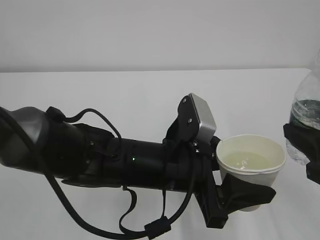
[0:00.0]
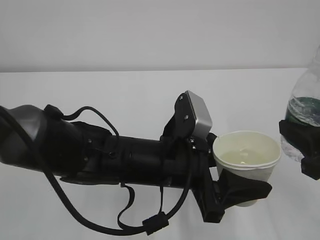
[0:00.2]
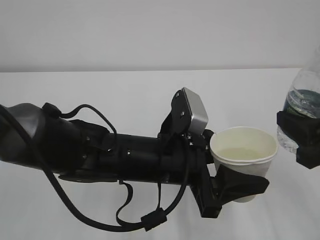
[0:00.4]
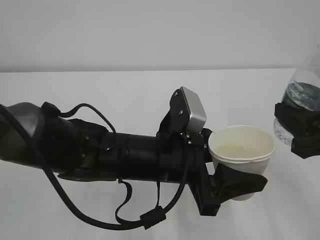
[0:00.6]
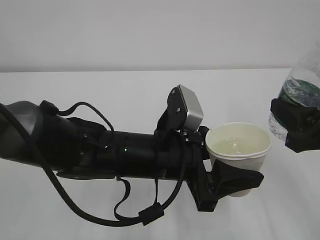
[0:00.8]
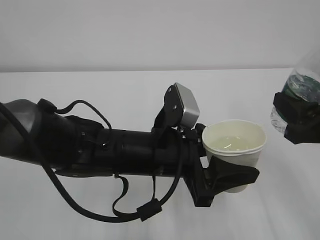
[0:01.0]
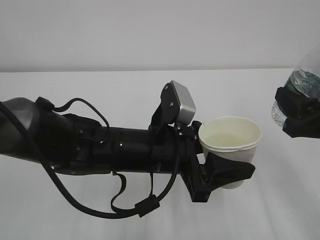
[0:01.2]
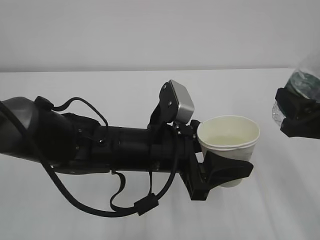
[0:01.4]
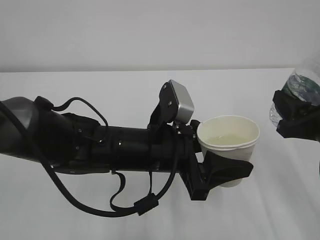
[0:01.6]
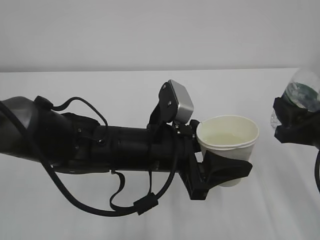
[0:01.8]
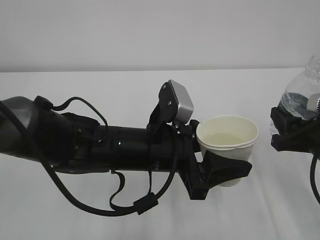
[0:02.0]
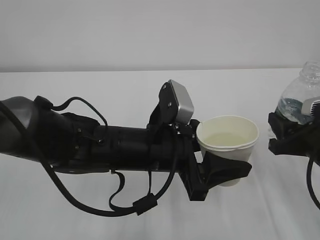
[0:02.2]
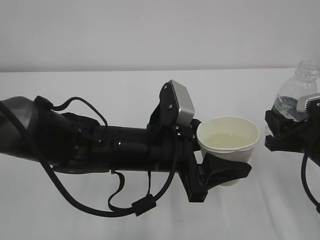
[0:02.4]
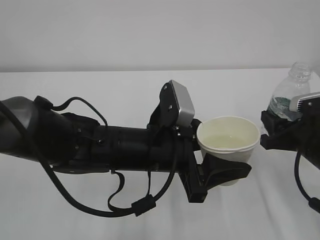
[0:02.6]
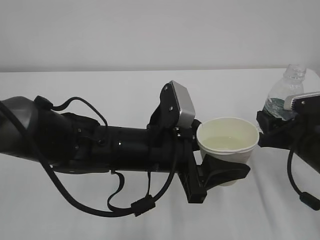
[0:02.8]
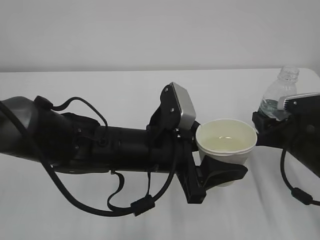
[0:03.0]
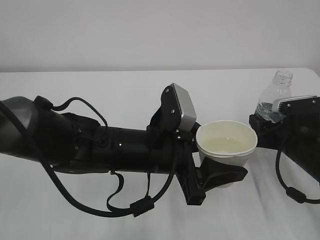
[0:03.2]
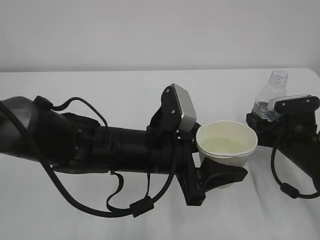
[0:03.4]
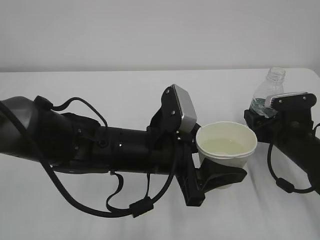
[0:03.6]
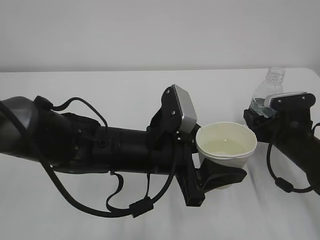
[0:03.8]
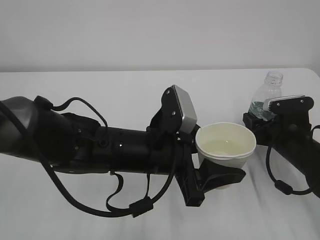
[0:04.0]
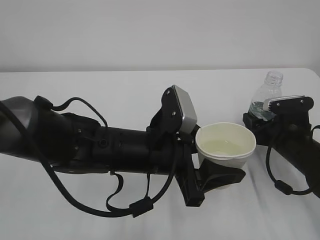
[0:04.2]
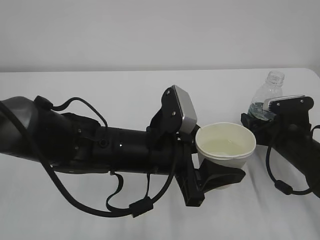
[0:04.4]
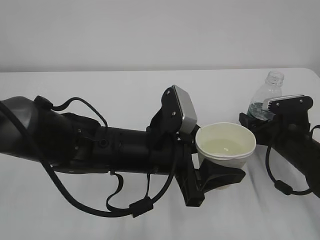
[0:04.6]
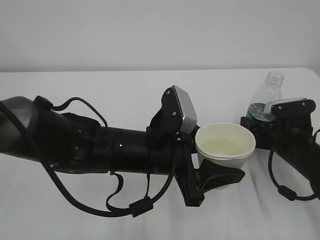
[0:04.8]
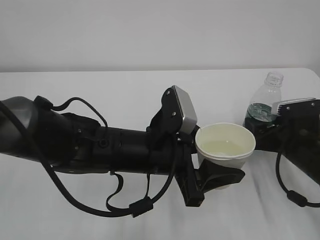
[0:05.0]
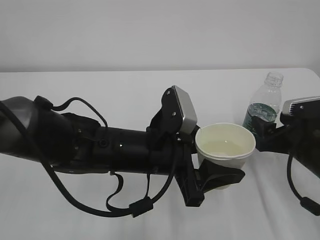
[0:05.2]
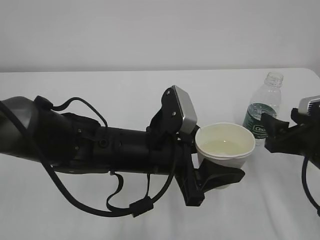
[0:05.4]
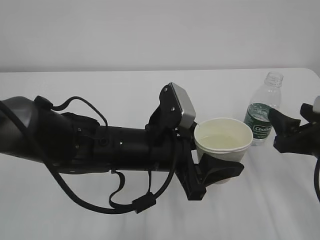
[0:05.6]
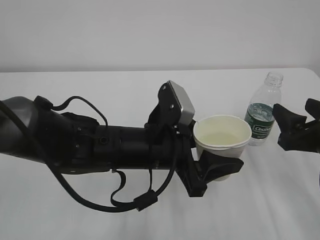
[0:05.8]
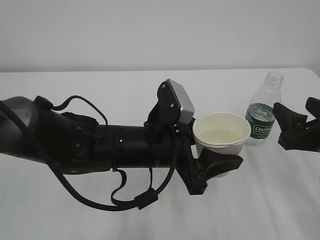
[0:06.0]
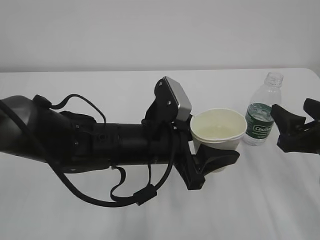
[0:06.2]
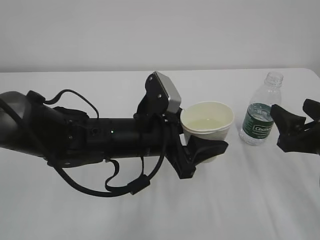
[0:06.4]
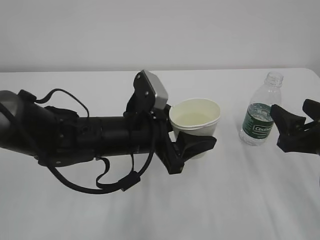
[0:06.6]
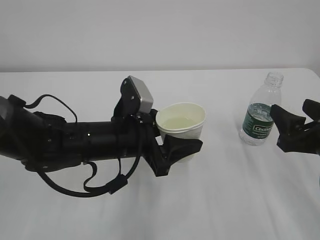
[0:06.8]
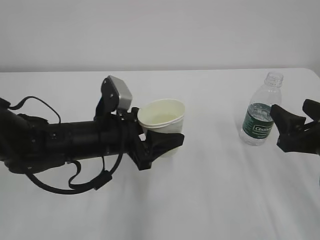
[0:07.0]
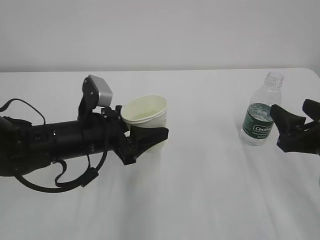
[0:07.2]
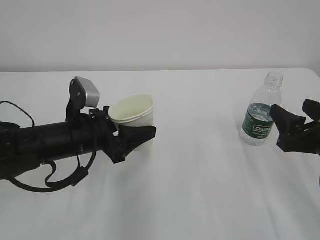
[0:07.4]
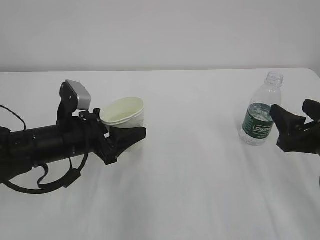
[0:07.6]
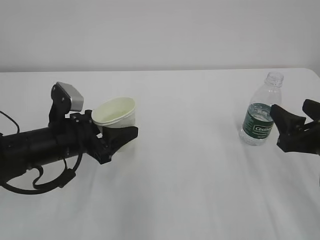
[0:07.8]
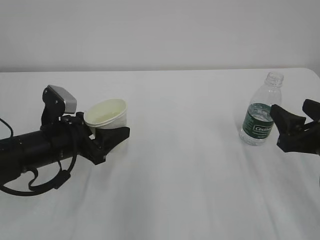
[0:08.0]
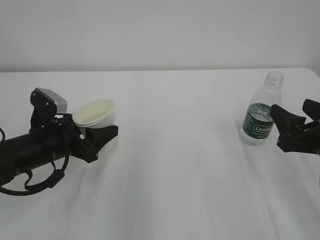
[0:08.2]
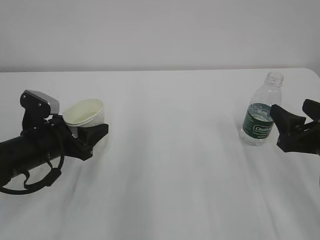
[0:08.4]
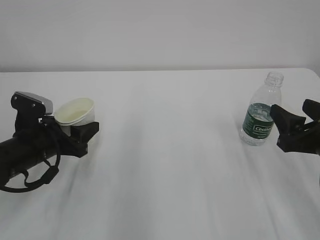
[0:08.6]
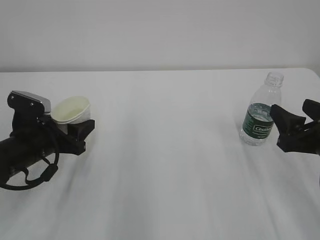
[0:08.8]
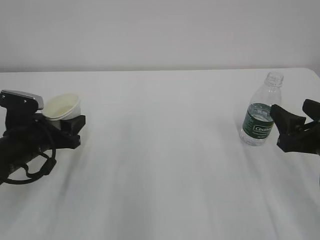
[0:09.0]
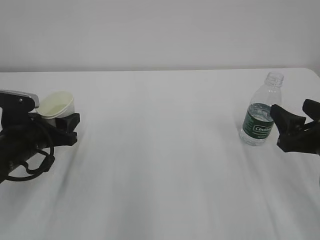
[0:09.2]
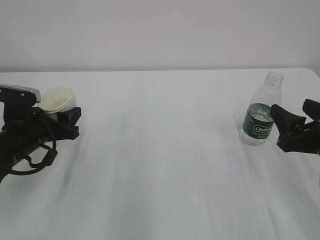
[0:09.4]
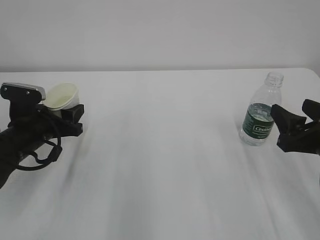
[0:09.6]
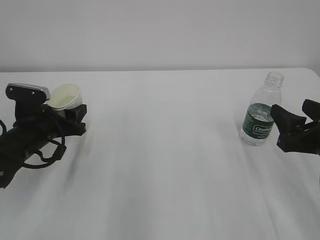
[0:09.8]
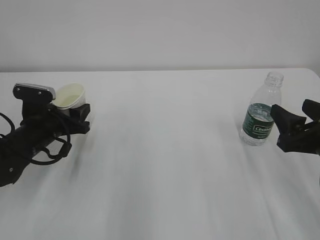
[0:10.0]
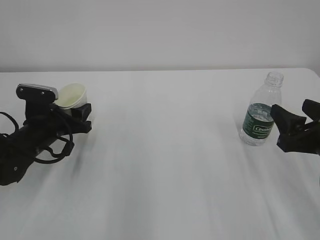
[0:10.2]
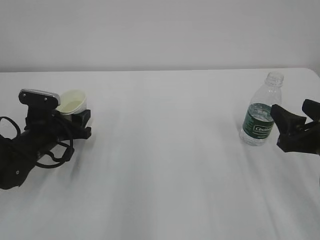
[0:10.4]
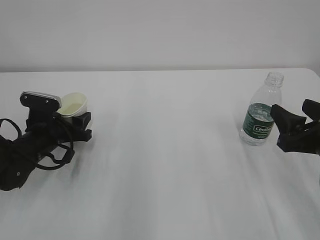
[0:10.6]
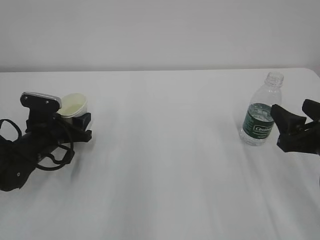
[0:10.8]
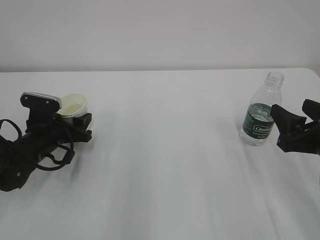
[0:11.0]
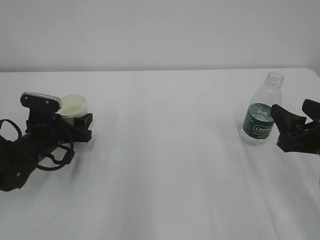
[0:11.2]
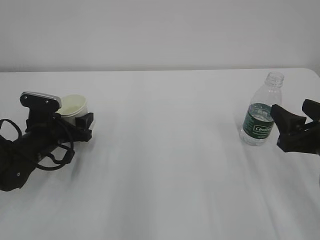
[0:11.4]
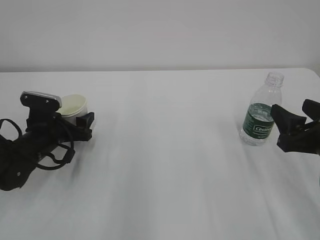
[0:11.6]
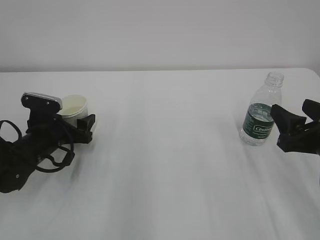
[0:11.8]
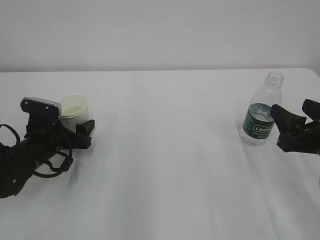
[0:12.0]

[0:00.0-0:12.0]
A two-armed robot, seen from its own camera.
0:00.0 to 0:01.6: The right gripper heads forward, covering about 5 cm.
0:01.6 to 0:03.0: The right gripper shifts about 10 cm downward and forward.
0:03.0 to 0:04.4: The right gripper opens its fingers.
0:04.4 to 0:06.0: The right gripper shifts about 15 cm backward and upward.
0:06.0 to 0:07.6: The left gripper travels to the left by some 15 cm.
0:07.6 to 0:09.0: The left gripper goes approximately 10 cm to the left.
0:09.0 to 0:10.4: The left gripper shifts by some 5 cm.
0:10.4 to 0:12.0: The left gripper opens up.

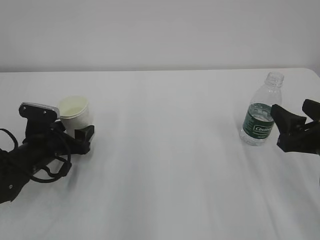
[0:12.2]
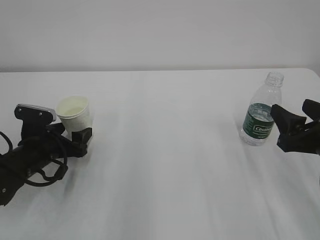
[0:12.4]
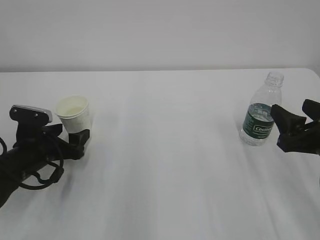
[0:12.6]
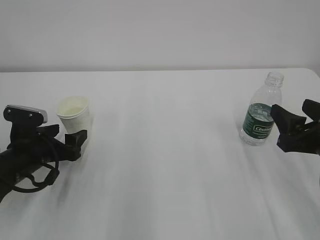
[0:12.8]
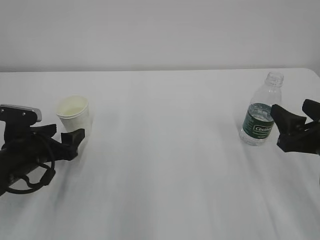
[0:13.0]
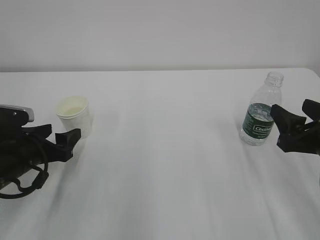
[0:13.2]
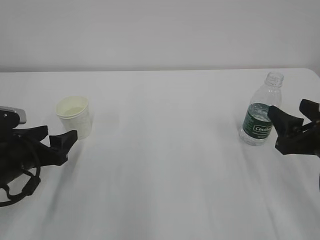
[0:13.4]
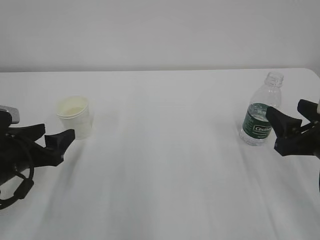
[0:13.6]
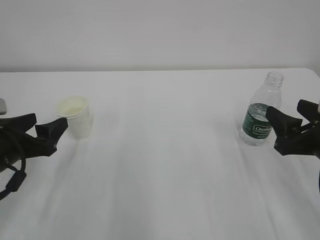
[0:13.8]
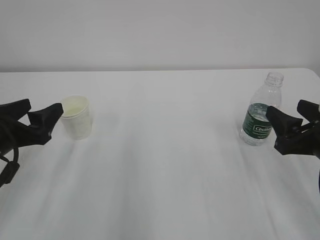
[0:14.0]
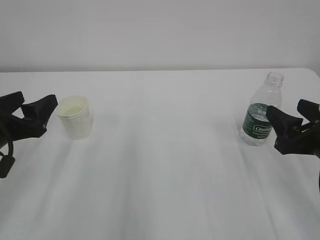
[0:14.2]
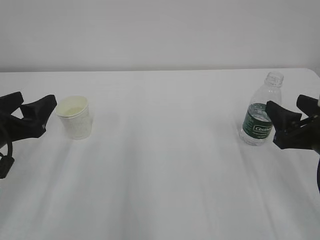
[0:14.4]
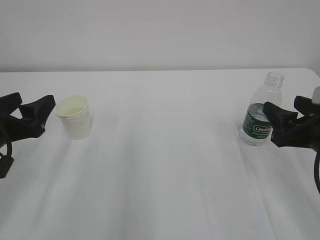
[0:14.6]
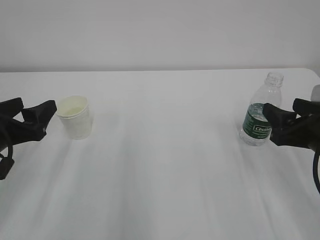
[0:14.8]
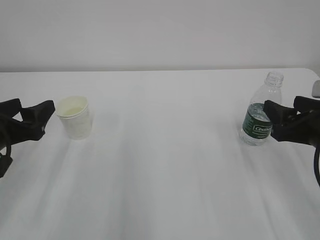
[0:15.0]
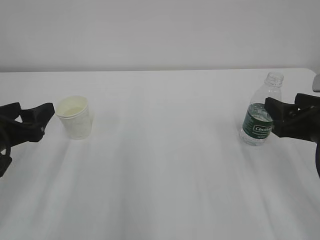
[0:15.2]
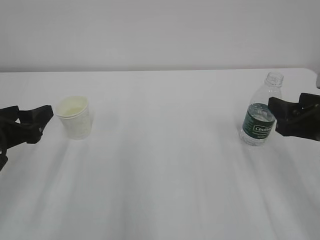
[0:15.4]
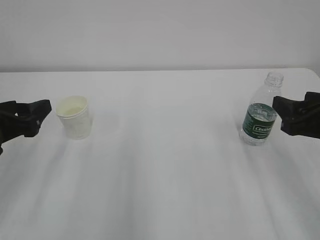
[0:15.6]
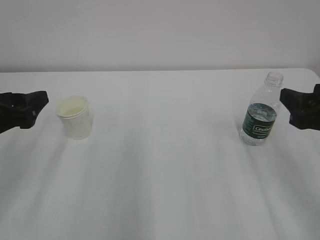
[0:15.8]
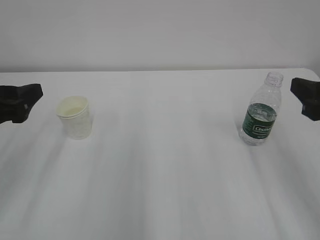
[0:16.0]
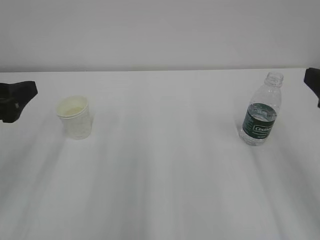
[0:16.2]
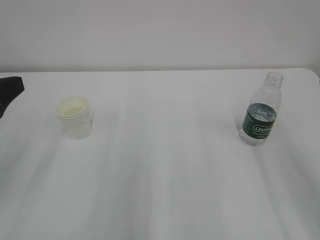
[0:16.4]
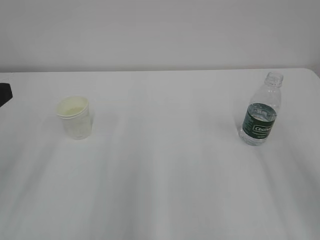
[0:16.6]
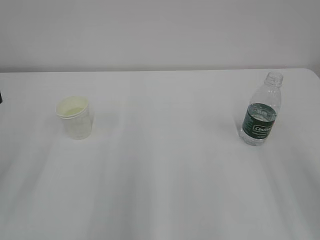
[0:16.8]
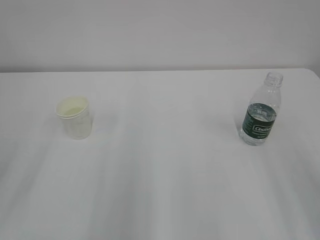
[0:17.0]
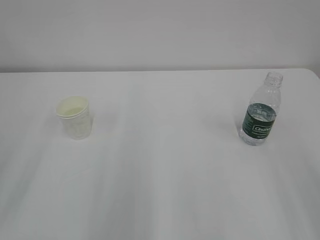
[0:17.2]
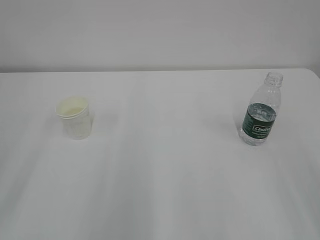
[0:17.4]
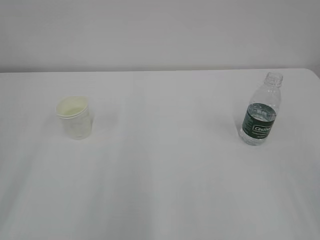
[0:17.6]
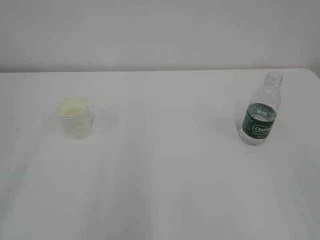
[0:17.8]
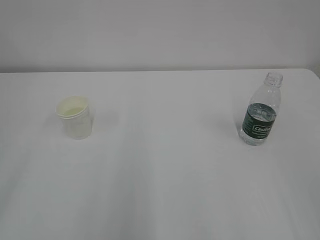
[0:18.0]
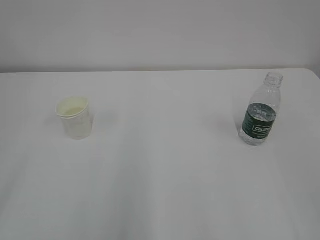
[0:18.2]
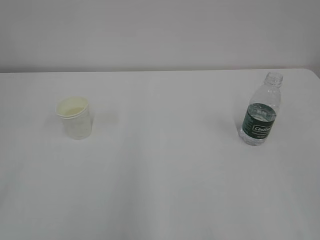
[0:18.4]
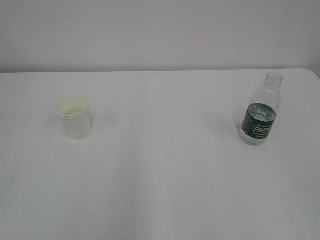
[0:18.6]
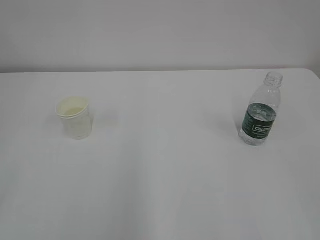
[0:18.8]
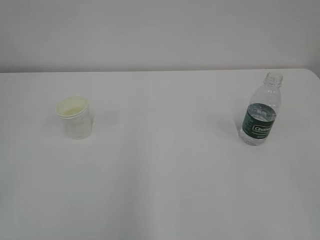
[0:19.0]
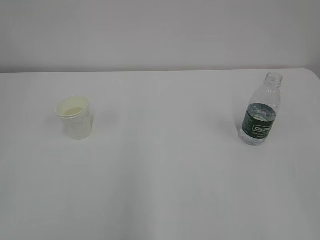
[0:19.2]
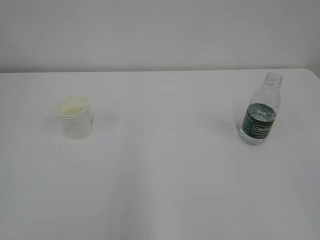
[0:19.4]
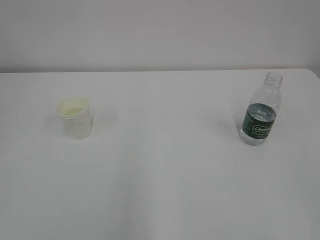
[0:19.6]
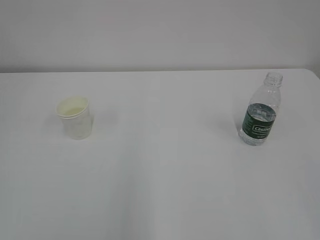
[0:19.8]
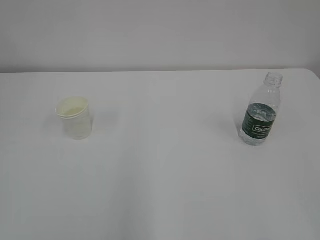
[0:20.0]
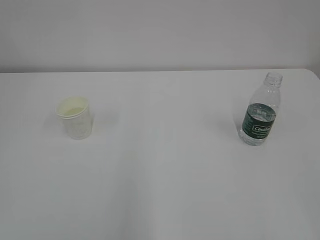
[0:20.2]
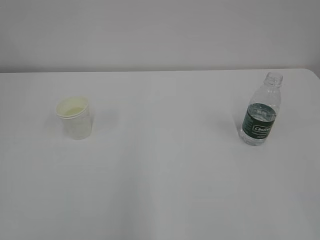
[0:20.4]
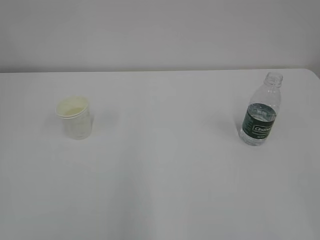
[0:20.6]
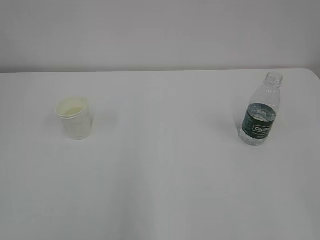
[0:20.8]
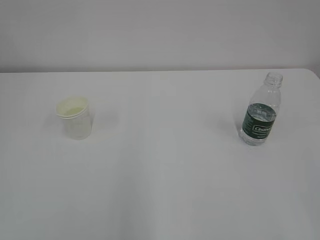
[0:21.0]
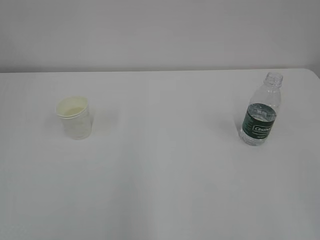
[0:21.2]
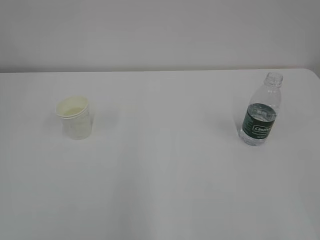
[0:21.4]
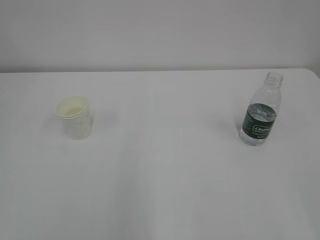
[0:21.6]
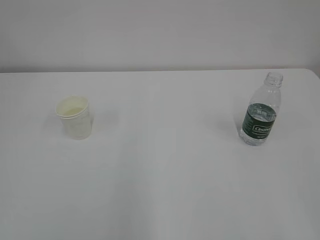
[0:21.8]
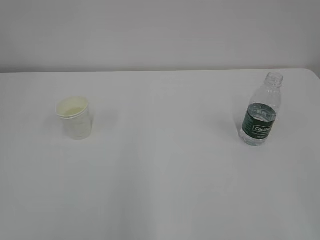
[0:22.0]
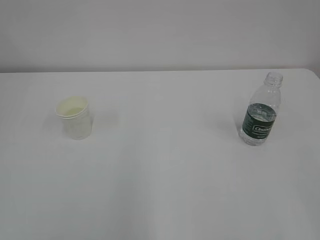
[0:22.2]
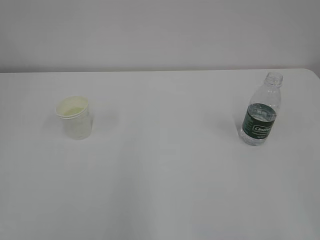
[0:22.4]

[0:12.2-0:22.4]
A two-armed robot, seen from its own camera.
0:12.2 to 0:13.6: The left gripper is displaced backward and upward by some 10 cm.
0:13.6 to 0:15.2: The grippers move only a little.
0:15.2 to 0:16.6: Both grippers move upward and backward, approximately 15 cm.
0:21.0 to 0:22.4: Neither gripper changes place.
